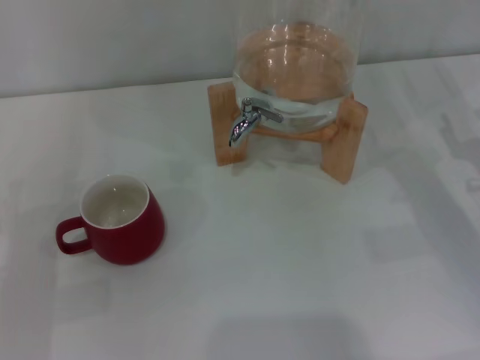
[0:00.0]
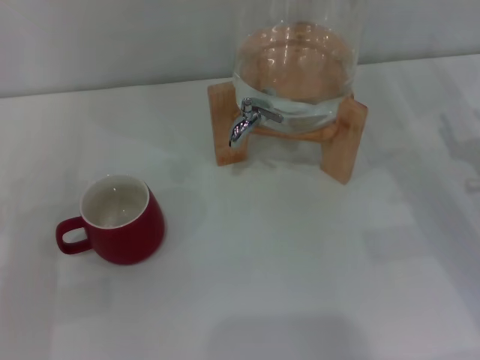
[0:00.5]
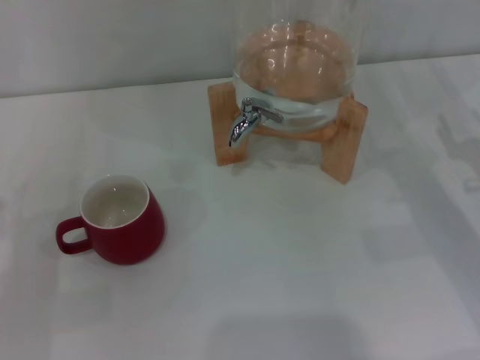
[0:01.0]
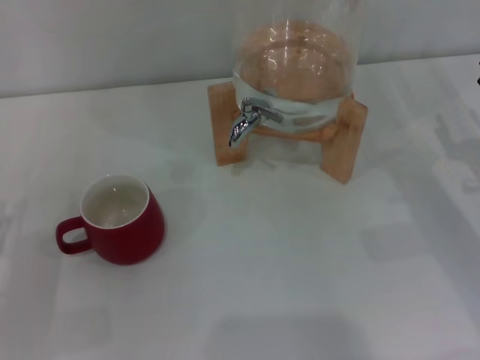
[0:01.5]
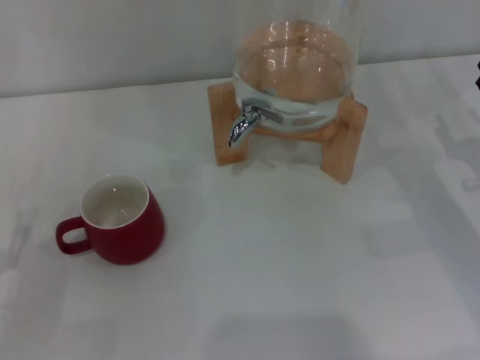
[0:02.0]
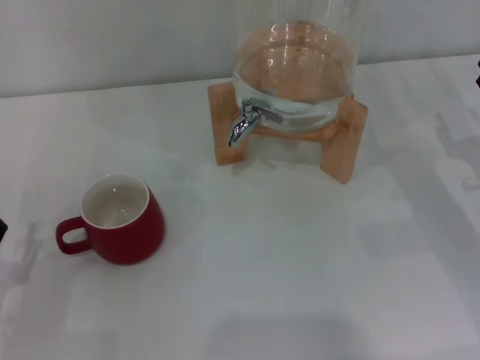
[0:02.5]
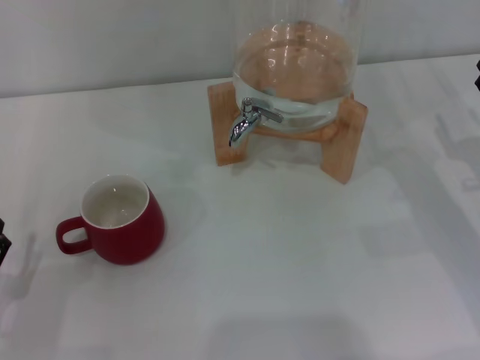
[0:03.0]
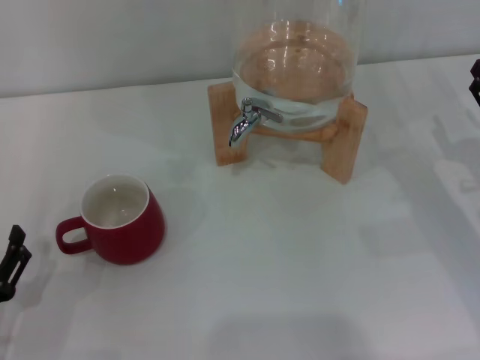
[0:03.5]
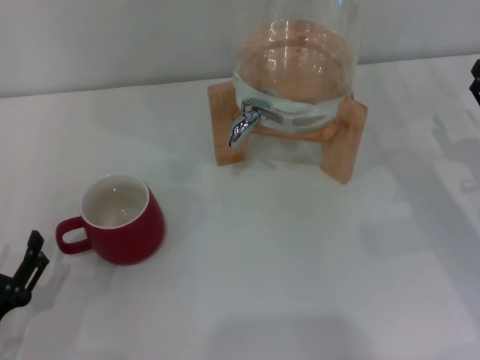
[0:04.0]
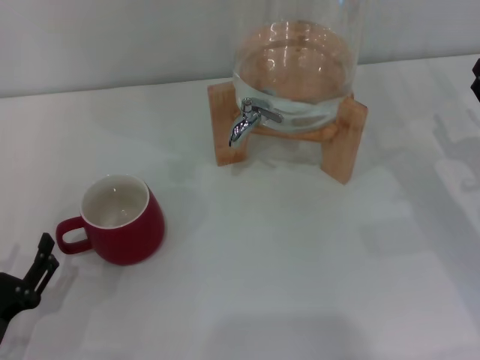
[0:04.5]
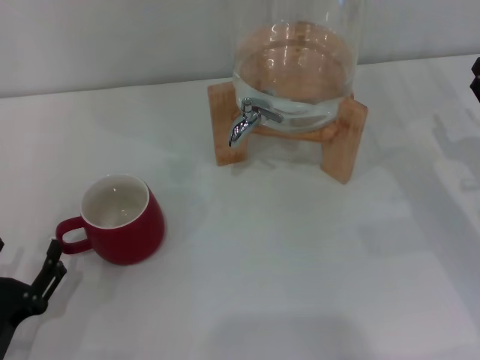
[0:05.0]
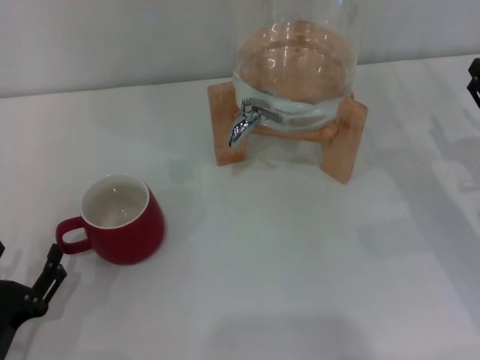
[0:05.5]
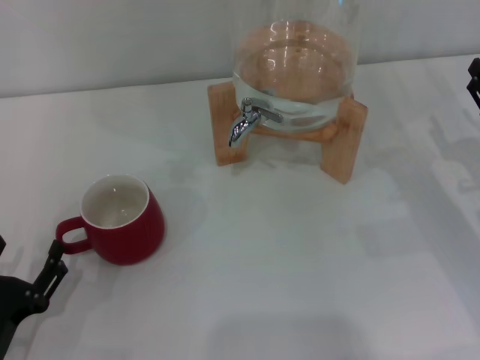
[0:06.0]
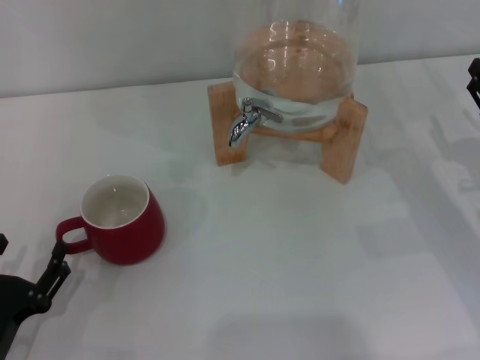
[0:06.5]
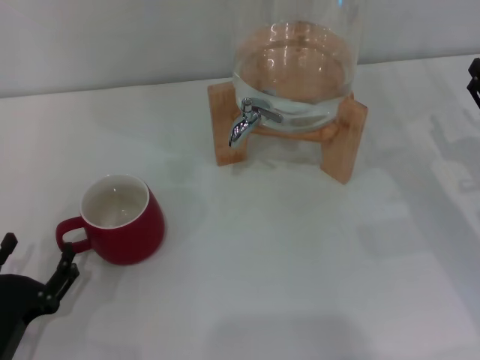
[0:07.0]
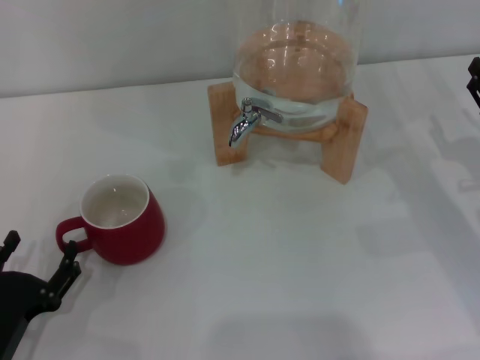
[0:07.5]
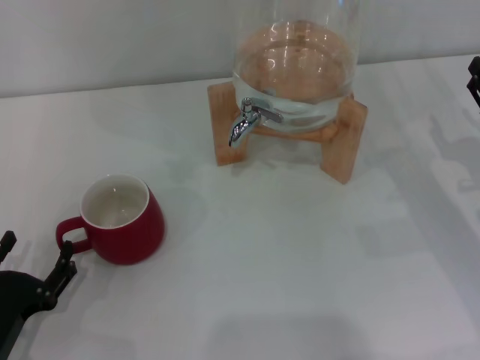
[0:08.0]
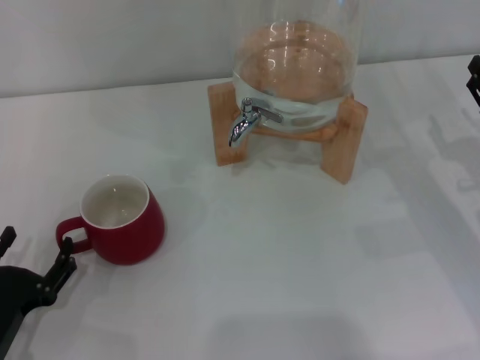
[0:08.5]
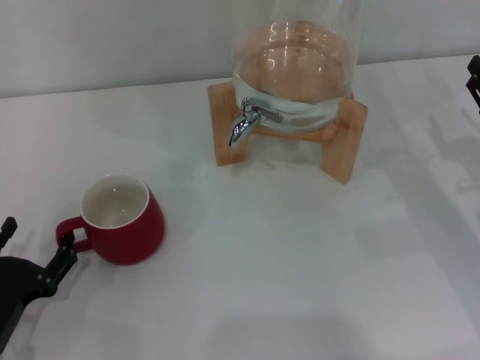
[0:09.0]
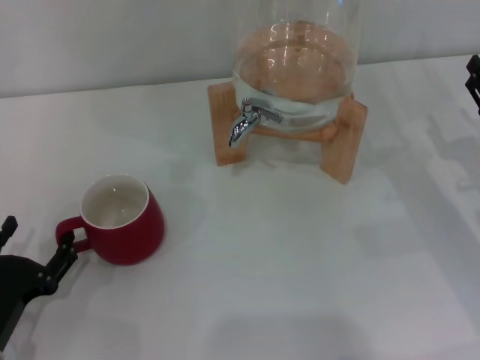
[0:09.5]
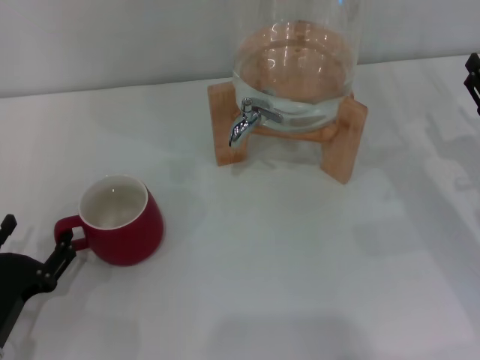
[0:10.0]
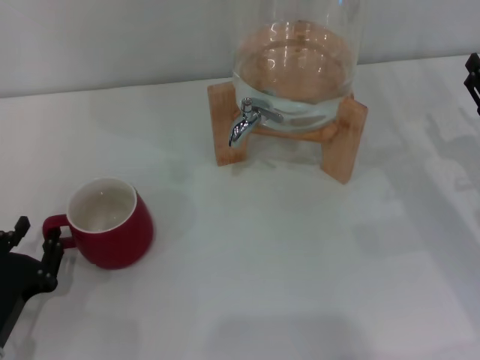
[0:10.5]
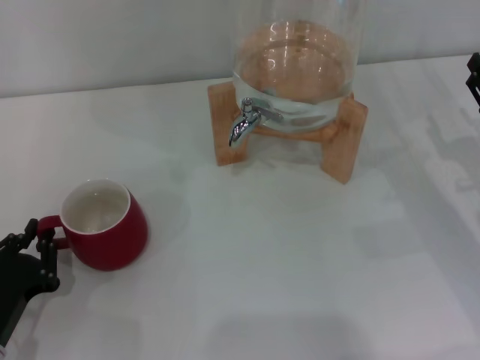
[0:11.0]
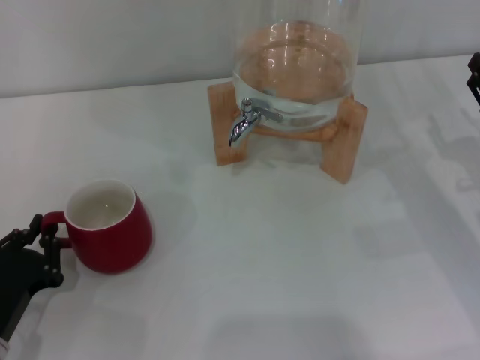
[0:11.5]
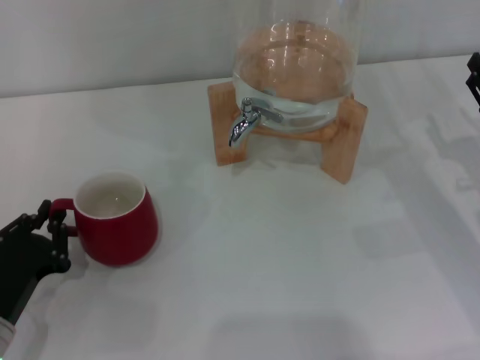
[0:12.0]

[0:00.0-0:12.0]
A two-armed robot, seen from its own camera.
Task of the whole recording: the left gripper pick up the red cup and place it horizontally under the faucet, the right gripper turn on the faucet to fill the cup, and then turn off the faucet.
0:02.0 to 0:04.0: There are only small adjustments of the grippers.
0:04.0 to 0:06.0: The two grippers keep their place.
0:06.0 to 0:10.0: The grippers stay close to where they were, moving slightly.
0:10.0 to 0:12.0: The left gripper closes its fingers.

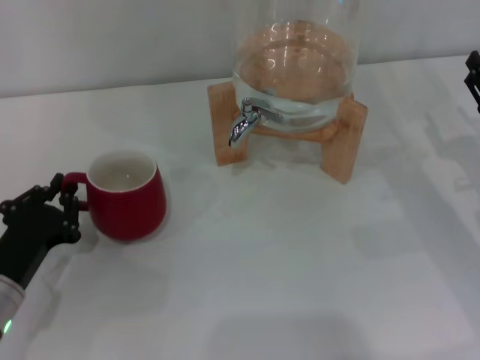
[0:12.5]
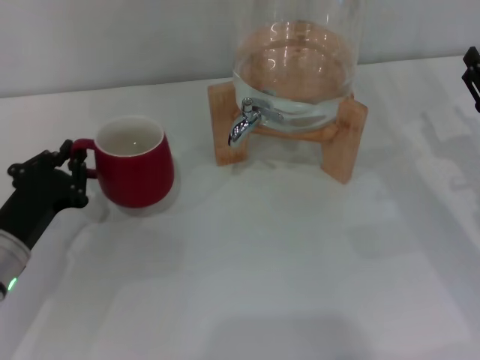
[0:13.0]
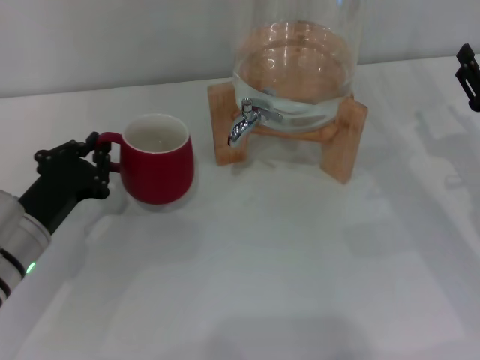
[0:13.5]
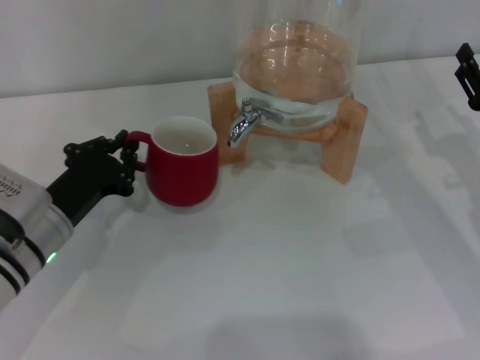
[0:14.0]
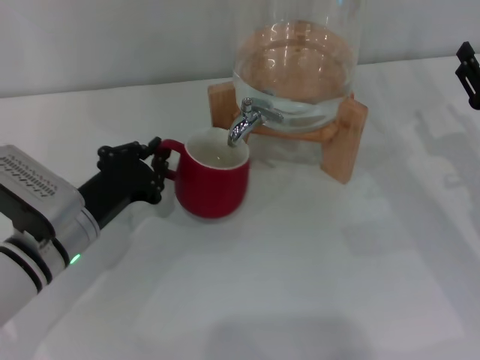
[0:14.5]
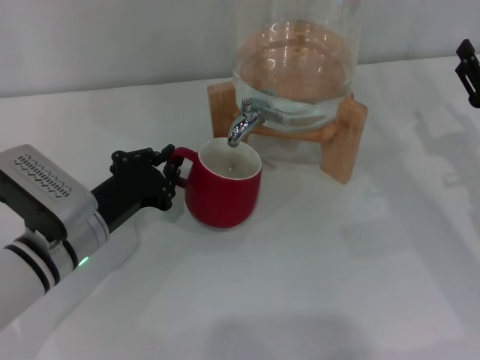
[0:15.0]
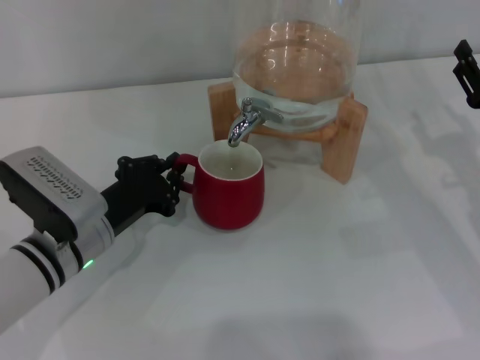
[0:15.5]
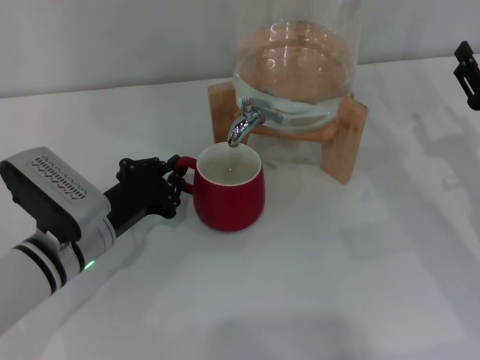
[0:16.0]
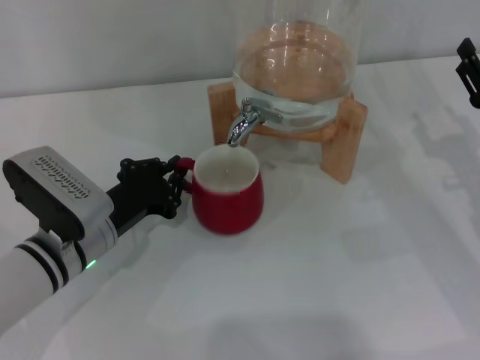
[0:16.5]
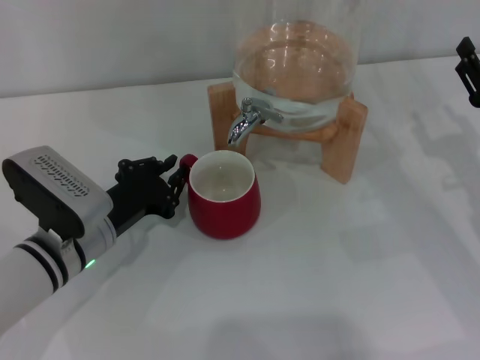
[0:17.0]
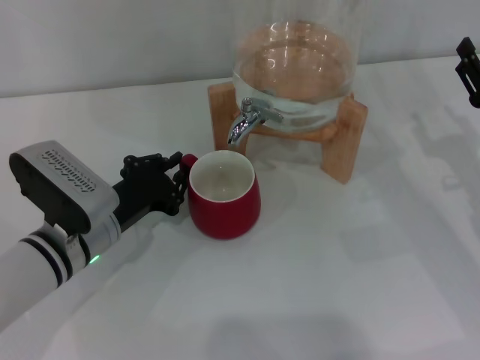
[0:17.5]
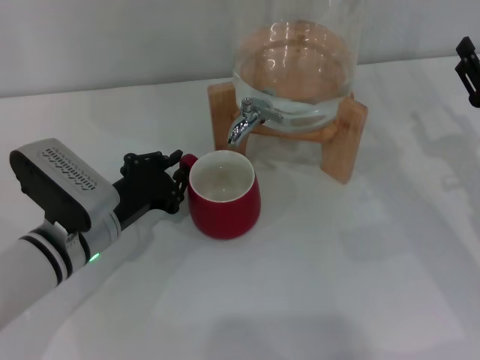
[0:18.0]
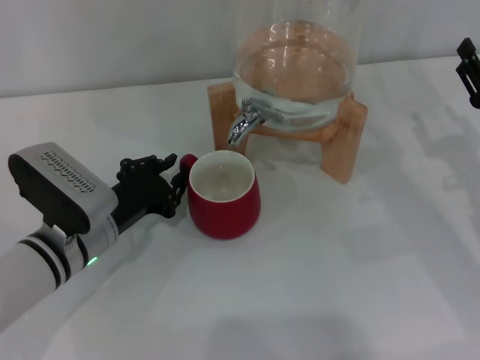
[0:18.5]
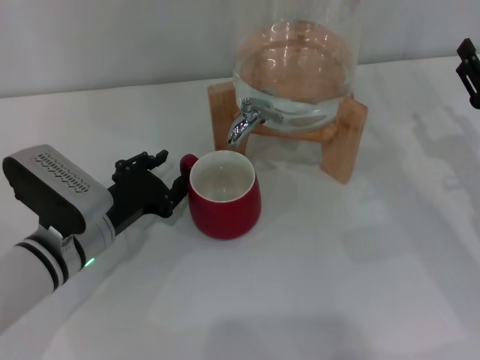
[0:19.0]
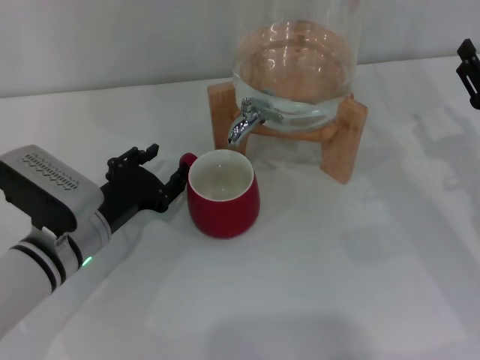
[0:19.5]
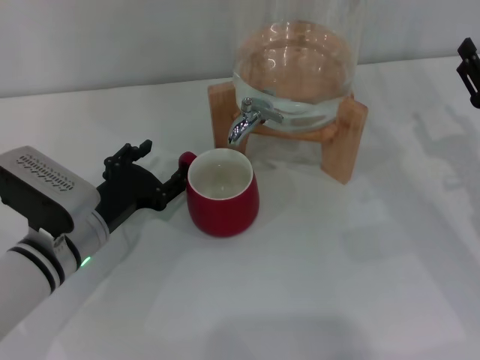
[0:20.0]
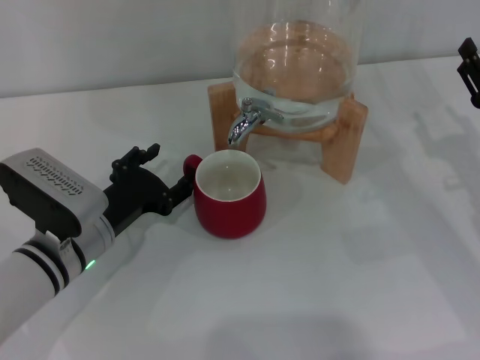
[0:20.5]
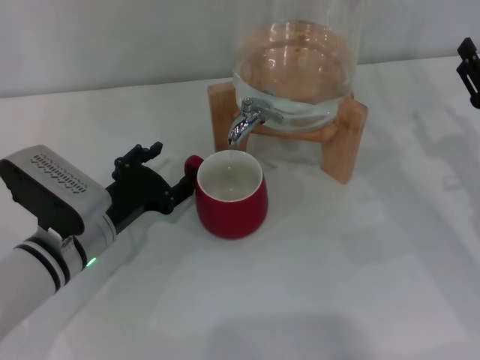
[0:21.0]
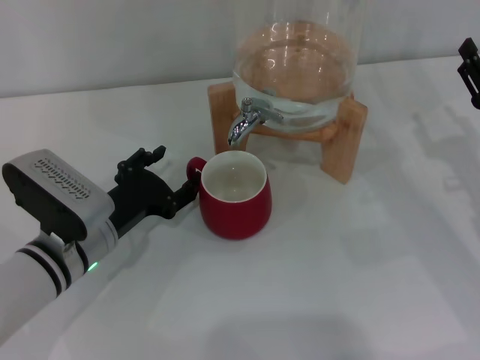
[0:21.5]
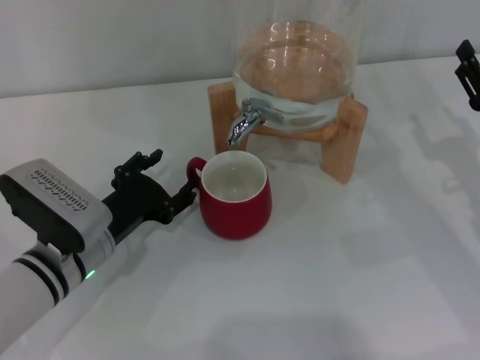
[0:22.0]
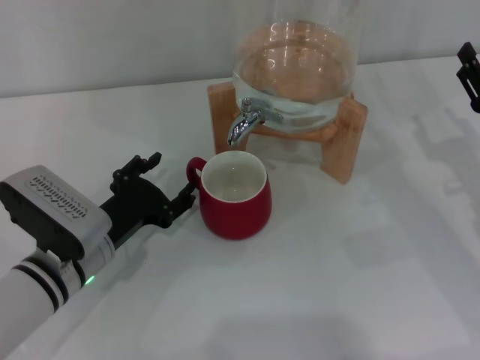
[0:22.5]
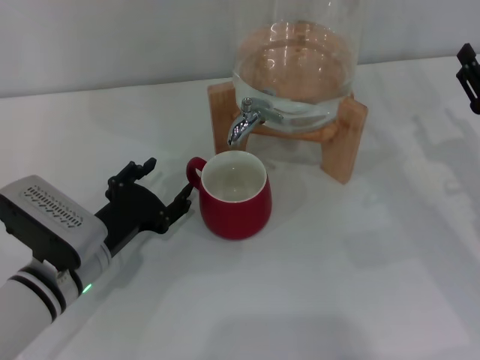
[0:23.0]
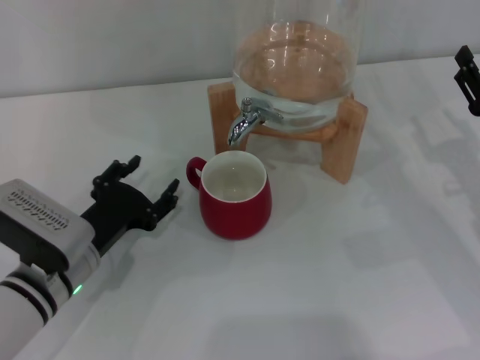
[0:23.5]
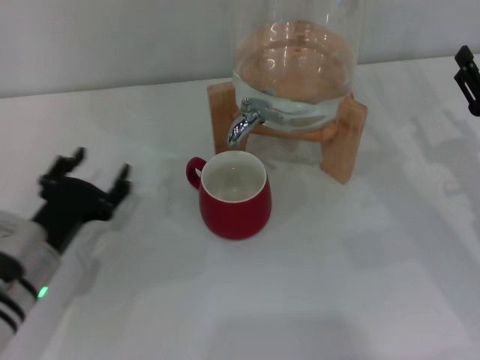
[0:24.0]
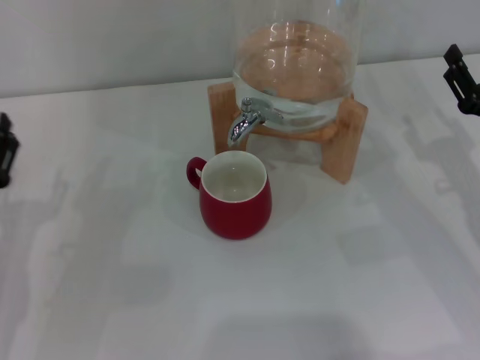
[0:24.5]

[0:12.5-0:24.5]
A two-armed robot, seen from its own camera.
Task of the whole recording: the left gripper pick up the red cup and place it horizontally under the faucet, the right gripper turn on the faucet to fill the cup, and then turn off the faucet.
Step, 0:12.5 to 0:22.5: Move the cup beneath the water dispenser nozzle with the left gripper.
0:12.5 to 0:14.5: The left gripper moves to the right and forward, some 10 cm.
0:14.5 to 0:16.5: The grippers move only a little.
0:16.5 to 0:18.5: Neither gripper changes place.
0:18.5 to 0:20.5: The left gripper opens its fingers.
0:20.5 to 0:22.5: The grippers stay close to where they were, moving slightly.
0:22.5 to 0:24.5: The left gripper is displaced to the left by roughly 10 cm.

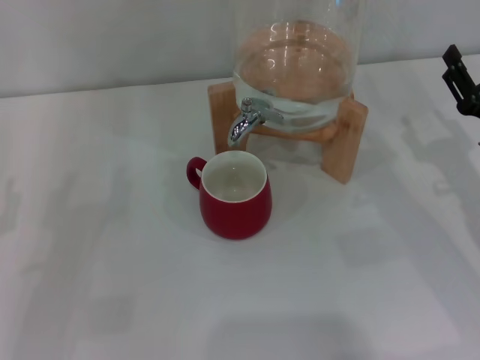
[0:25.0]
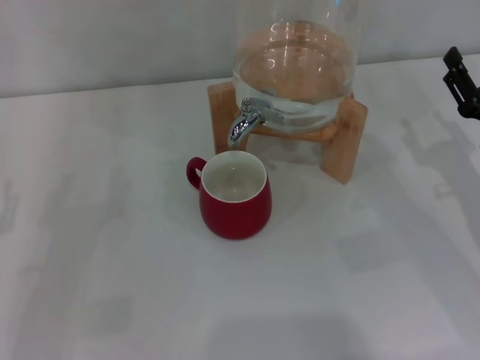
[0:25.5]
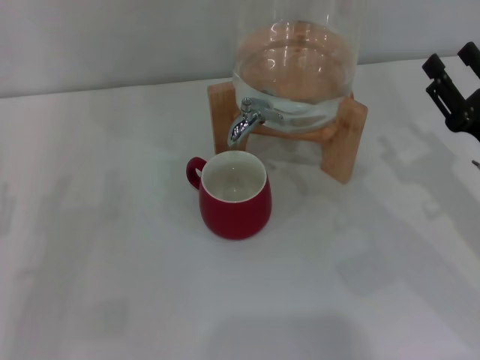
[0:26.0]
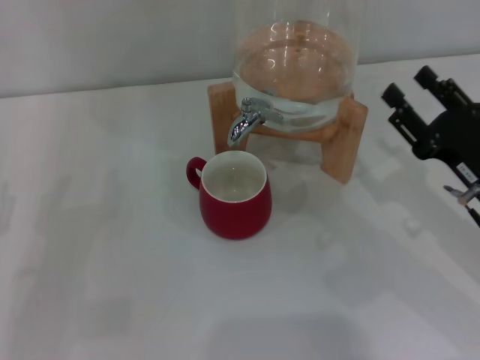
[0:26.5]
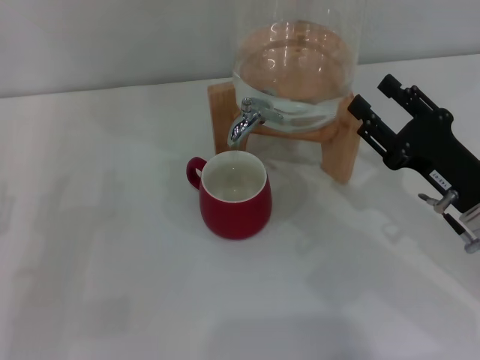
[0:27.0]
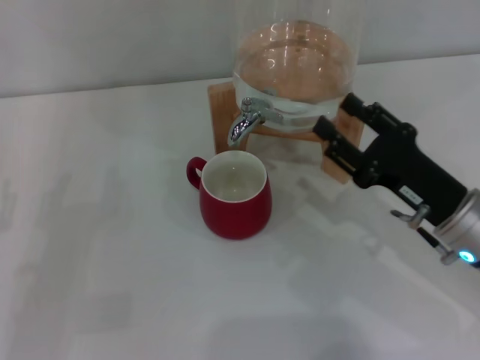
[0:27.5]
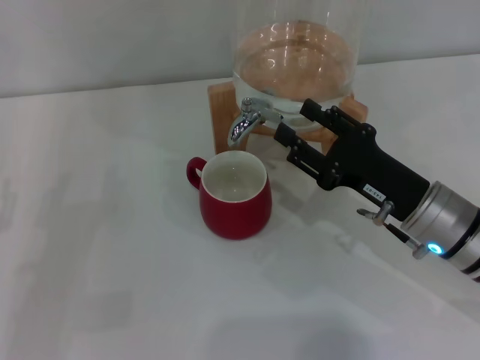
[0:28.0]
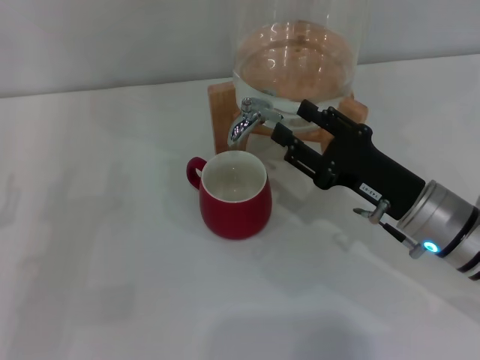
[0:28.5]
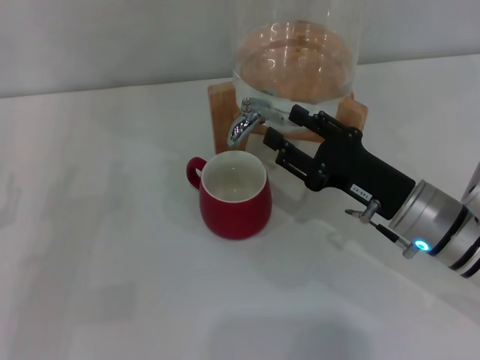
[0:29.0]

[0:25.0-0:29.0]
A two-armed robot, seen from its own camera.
Task of the whole recording: the left gripper pick up the red cup and place it horizontally under the faucet, the right gripper turn on the faucet to fill the cup, and then turn off the faucet.
0:25.0 to 0:27.0: The right gripper moves to the left, about 5 cm.
0:27.0 to 0:29.0: The right gripper is displaced to the left by roughly 5 cm.
